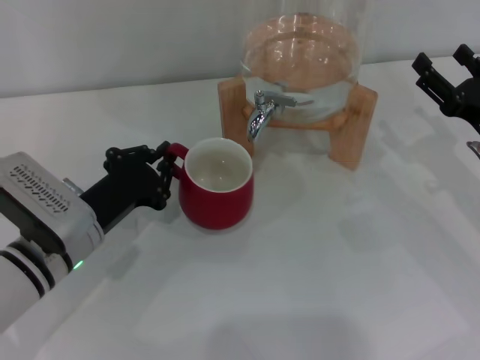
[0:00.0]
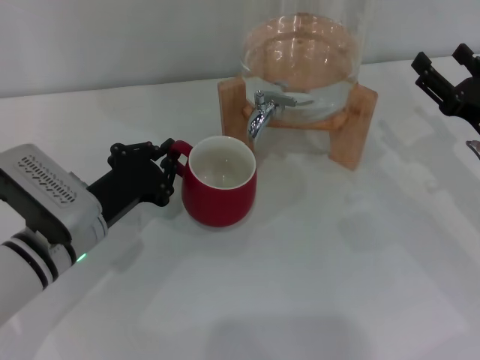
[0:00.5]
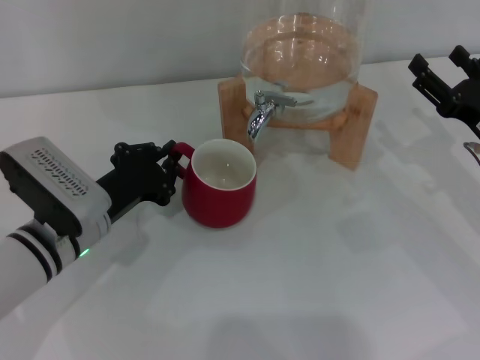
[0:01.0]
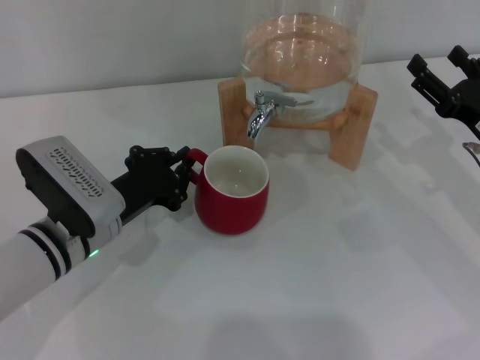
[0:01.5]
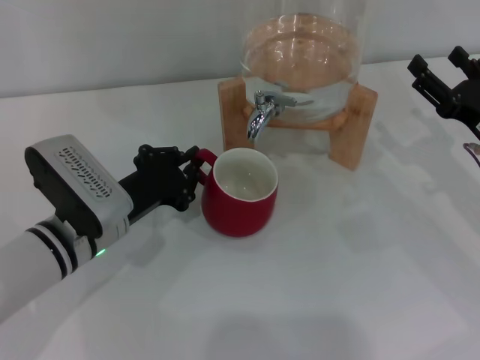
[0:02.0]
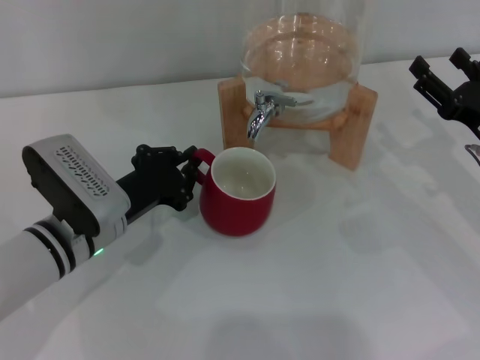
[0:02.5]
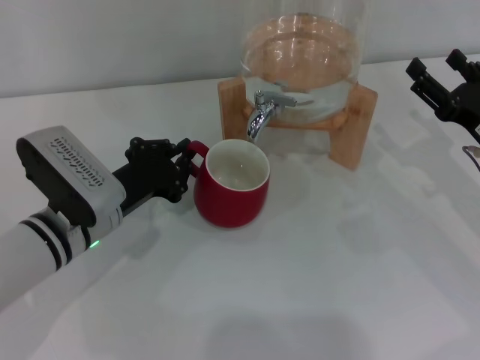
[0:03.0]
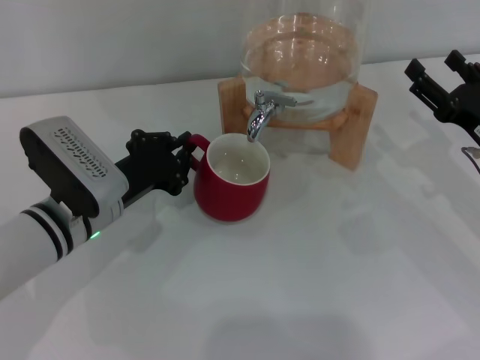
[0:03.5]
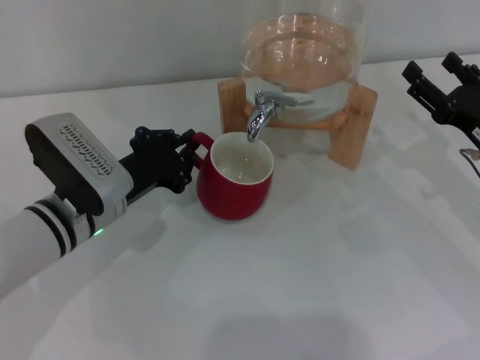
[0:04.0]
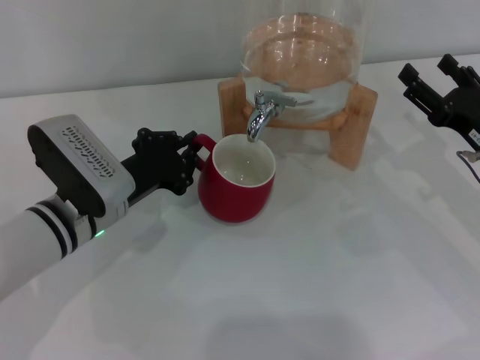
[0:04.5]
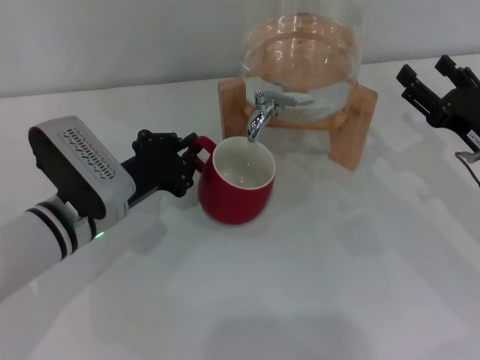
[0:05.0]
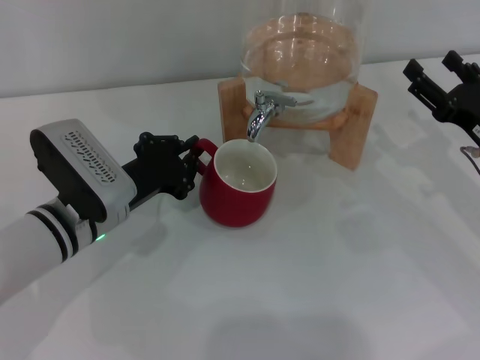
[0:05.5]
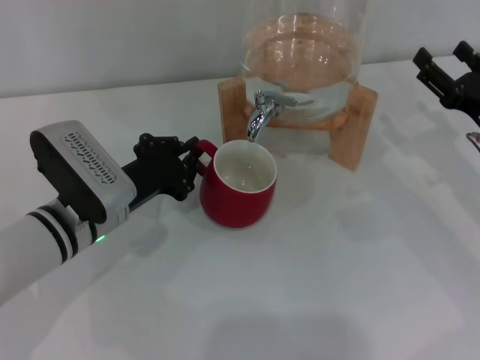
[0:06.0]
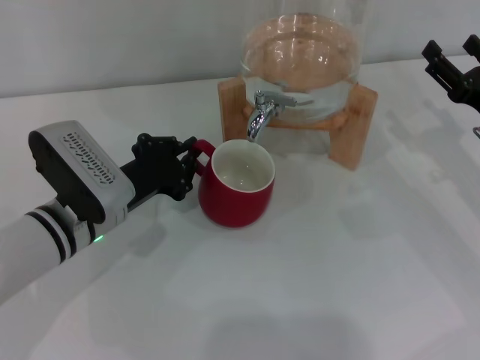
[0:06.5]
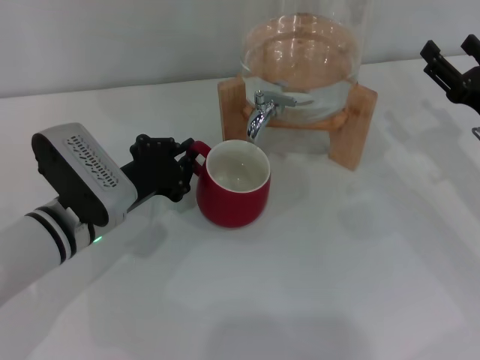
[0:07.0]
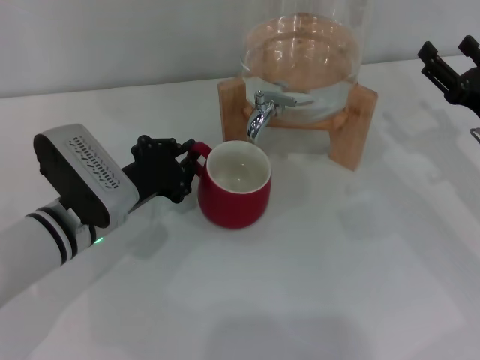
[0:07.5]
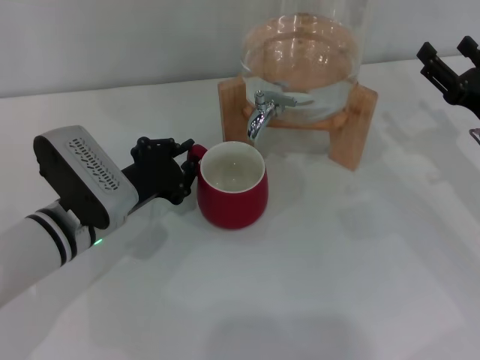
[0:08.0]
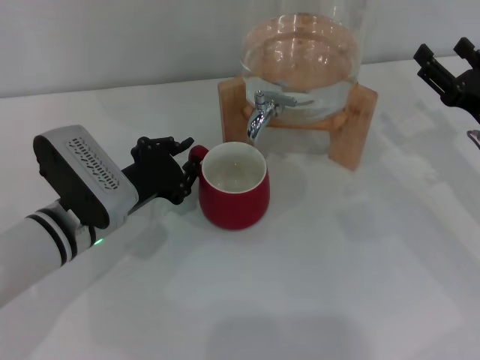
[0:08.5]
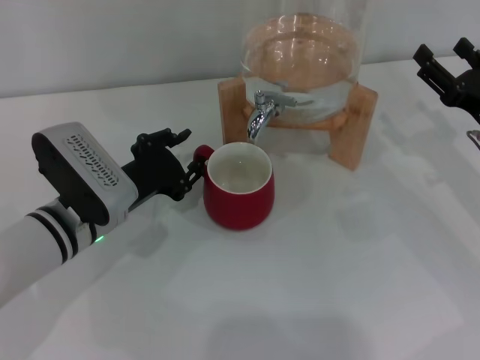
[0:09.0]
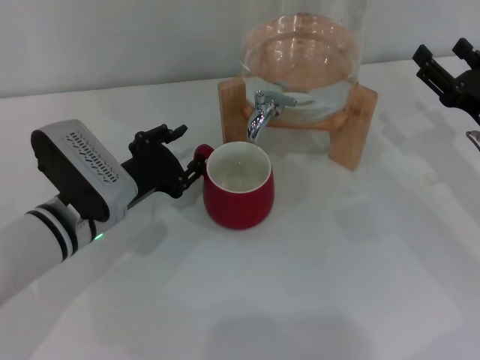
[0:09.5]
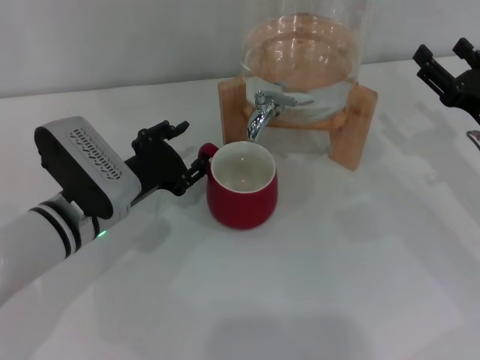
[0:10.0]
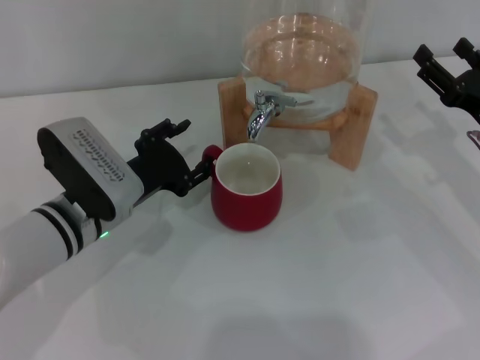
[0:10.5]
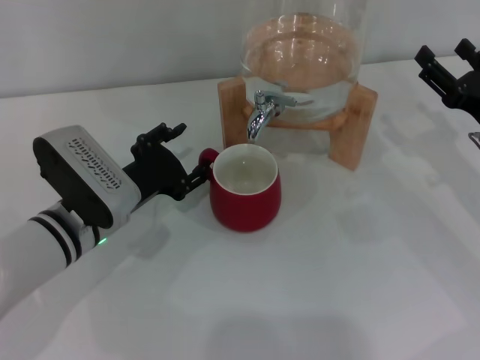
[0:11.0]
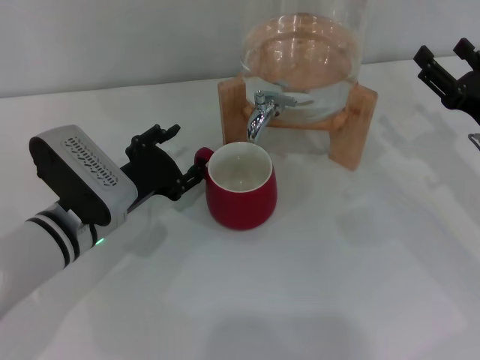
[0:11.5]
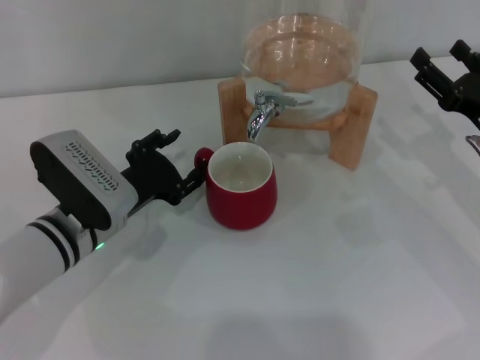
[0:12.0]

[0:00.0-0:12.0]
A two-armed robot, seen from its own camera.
Task of the whole recording: the left gripper pick up the red cup and place it horizontally under the faucet, the right gripper turn on the faucet to fill the cup, and then turn off the faucet.
0:00.0 to 0:06.0: There are only small adjustments of the grippers.
0:06.0 to 0:08.0: Neither gripper changes place.
0:08.0 to 0:10.0: The left gripper opens up.
0:10.0 to 0:12.0: Both grippers stay put.

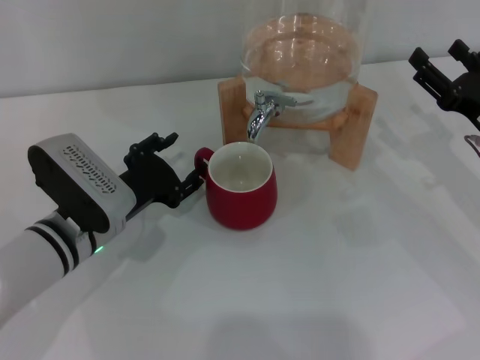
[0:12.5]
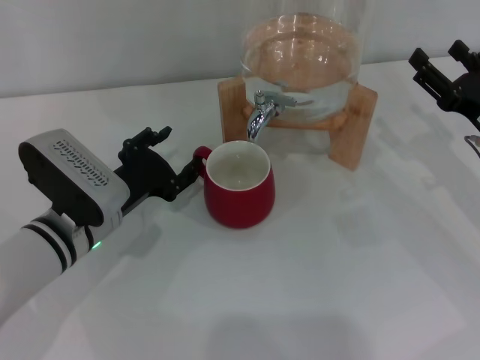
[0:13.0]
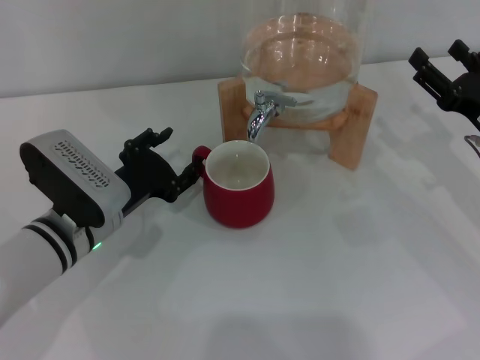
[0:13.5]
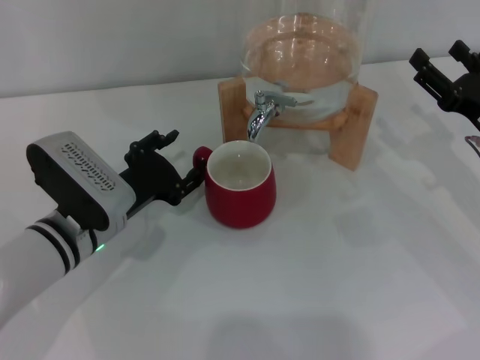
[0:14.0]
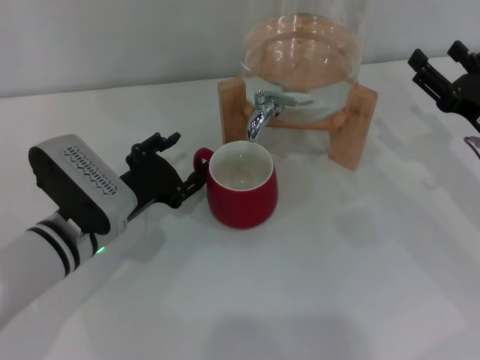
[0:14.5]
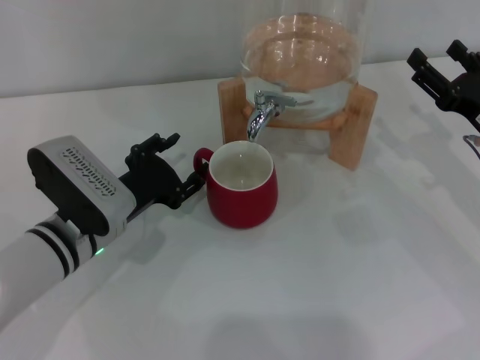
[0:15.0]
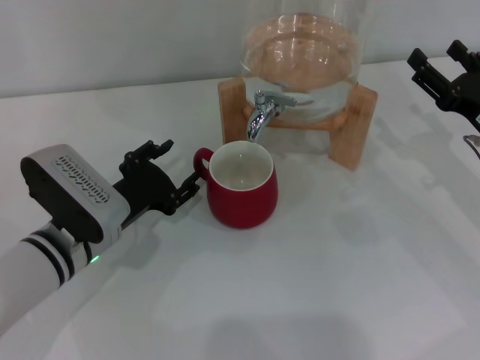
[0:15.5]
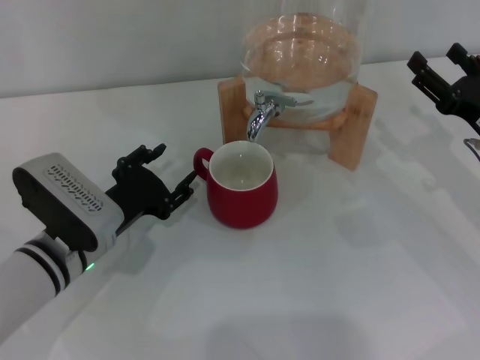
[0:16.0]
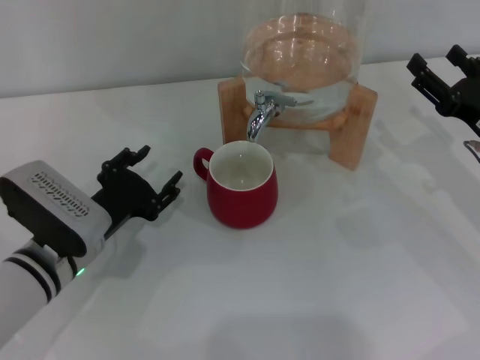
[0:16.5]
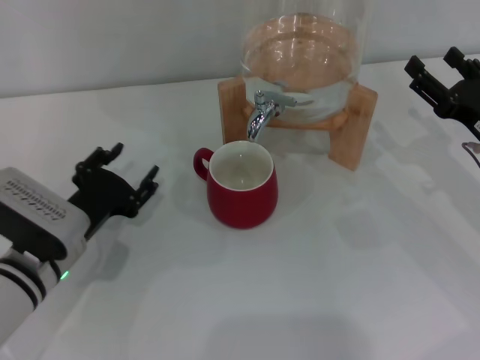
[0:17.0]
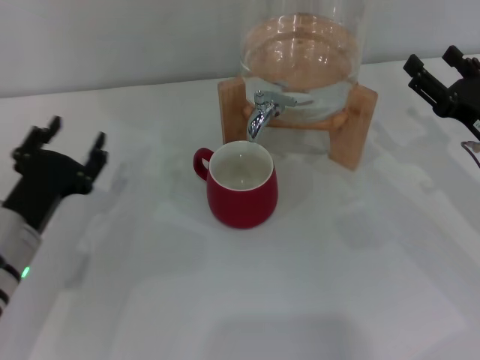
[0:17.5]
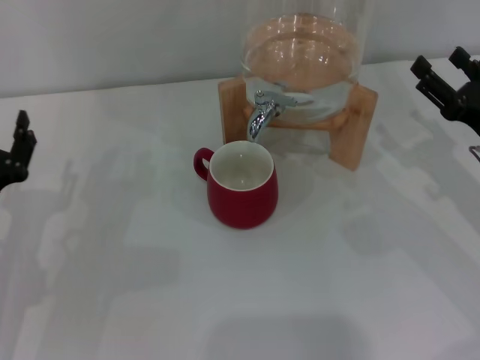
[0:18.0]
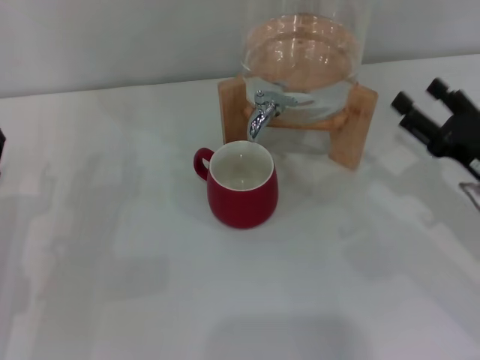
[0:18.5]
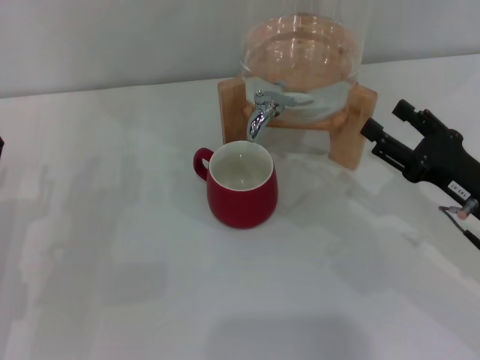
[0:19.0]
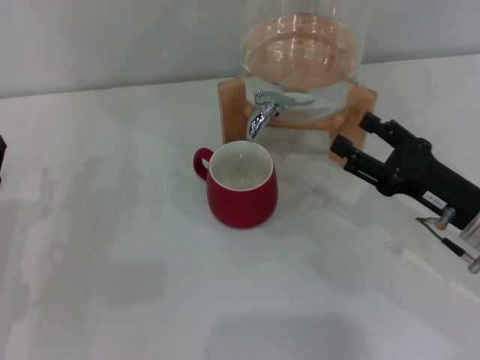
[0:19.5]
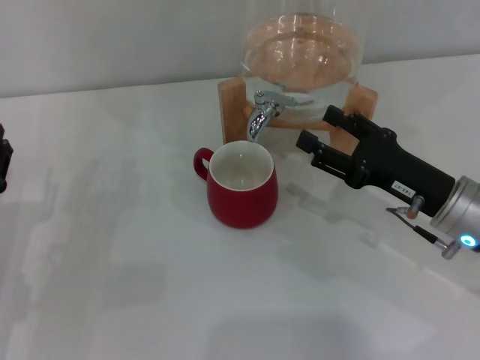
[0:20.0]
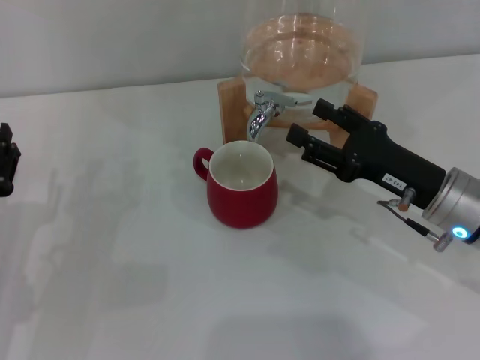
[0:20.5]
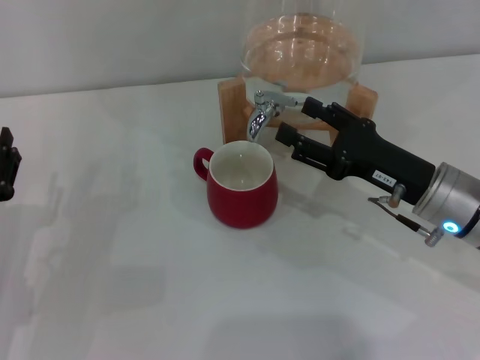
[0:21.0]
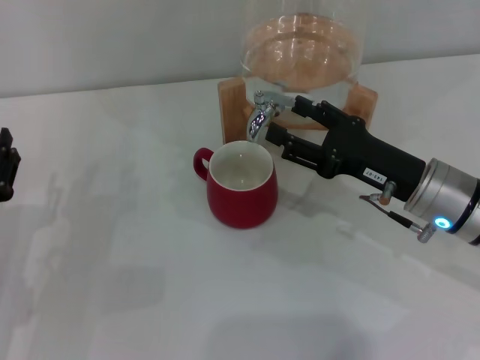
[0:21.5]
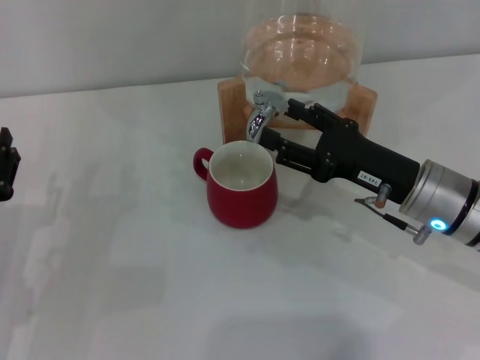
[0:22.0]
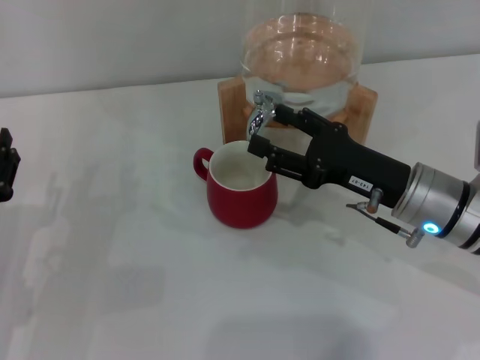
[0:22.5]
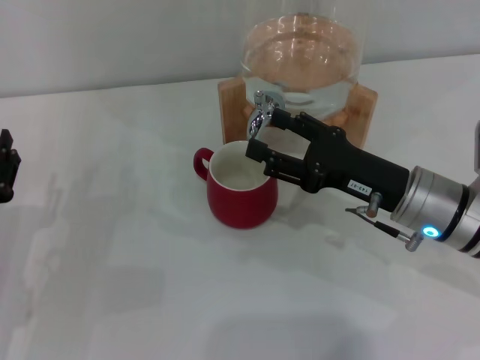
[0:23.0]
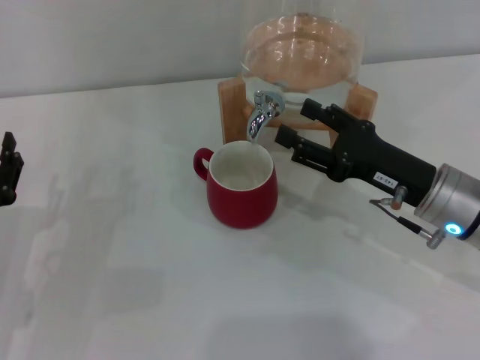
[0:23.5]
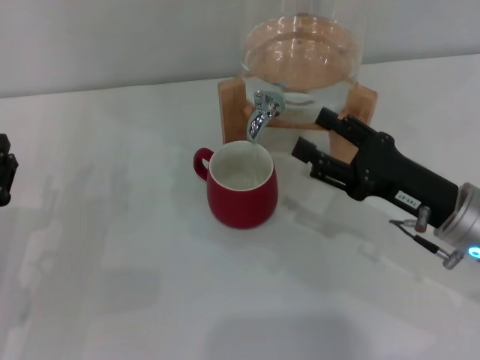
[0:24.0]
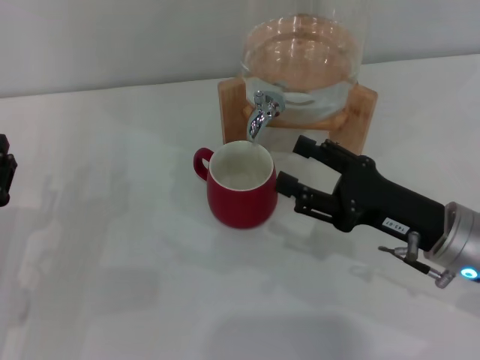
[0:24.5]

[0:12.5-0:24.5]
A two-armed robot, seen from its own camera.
Task of the whole recording: the left gripper pick up the red cup and place it horizontally under the faucet, the right gripper turn on the faucet to fill the cup, and then turn off the faucet.
Step, 0:12.5 to 0:16.5: Move the cup beneath the water dispenser nozzle with the left gripper.
0:12.5 to 0:14.5: Both grippers stay put.
0:14.5 to 0:16.5: The grippers make only small movements.
0:16.5 to 0:18.5: The left gripper heads to the left, covering about 10 cm.
0:18.5 to 0:20.5: The right gripper travels to the left by approximately 5 cm.
0:20.5 to 0:24.5: The grippers stay close to where they were, moving slightly.

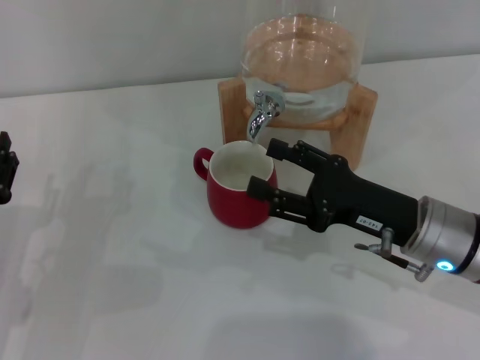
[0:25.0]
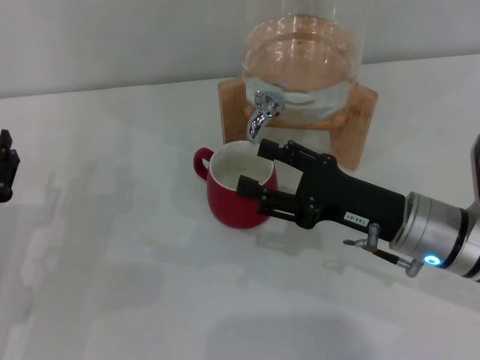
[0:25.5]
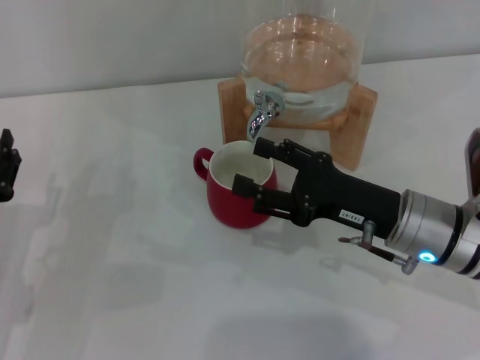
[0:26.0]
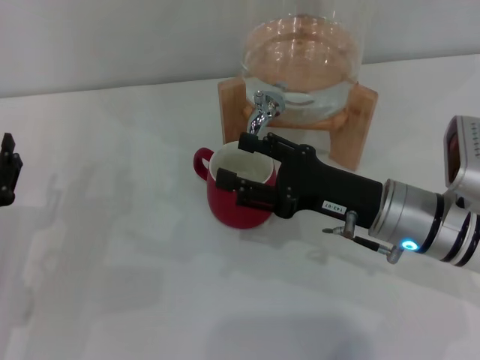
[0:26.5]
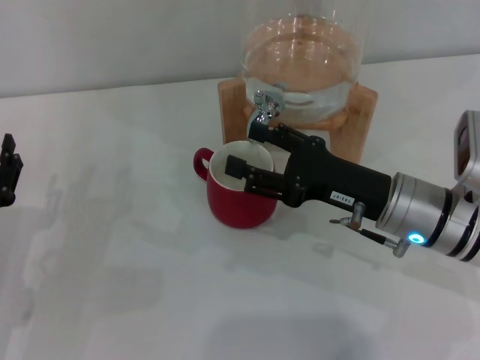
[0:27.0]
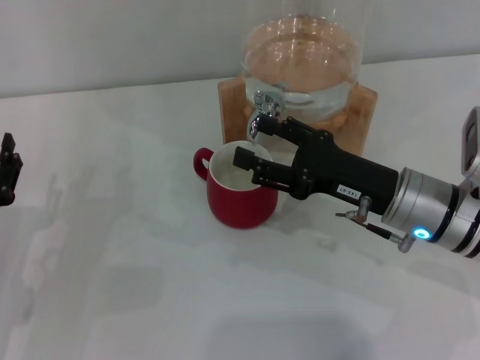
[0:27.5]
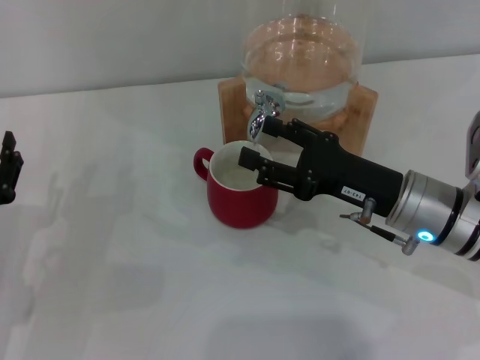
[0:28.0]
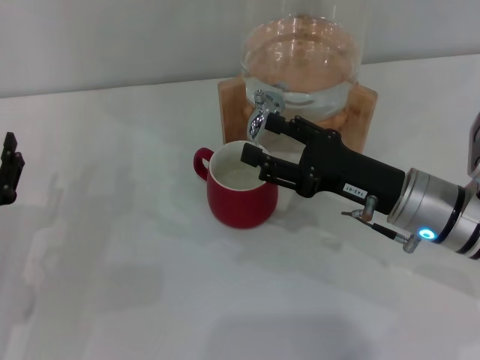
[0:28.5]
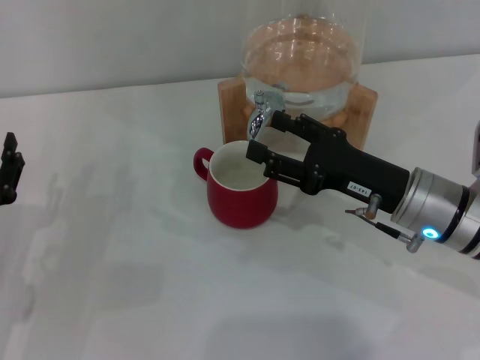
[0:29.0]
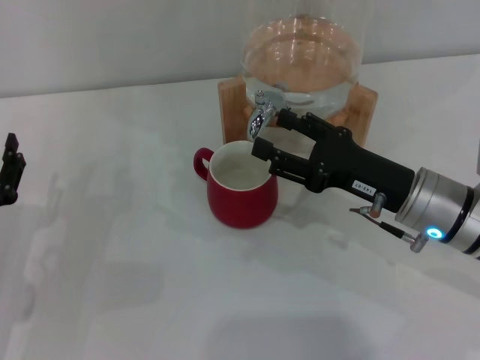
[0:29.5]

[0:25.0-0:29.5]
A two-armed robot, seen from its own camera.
Task of the whole recording: the left gripper pick up the red cup and place it horizontally under the faucet, the right gripper turn on the faucet to fill the cup, and then turn off the faucet.
Step, 0:25.0 to 0:27.0: Open the dispenser valve and fill the cup with water with the right gripper.
0:25.0 to 0:29.5: The grippers stay close to where they were, moving slightly.